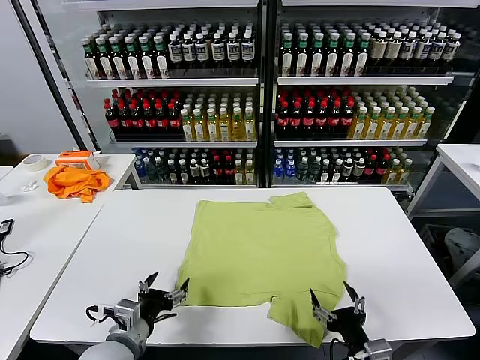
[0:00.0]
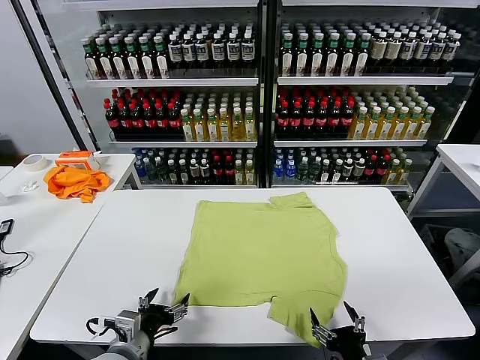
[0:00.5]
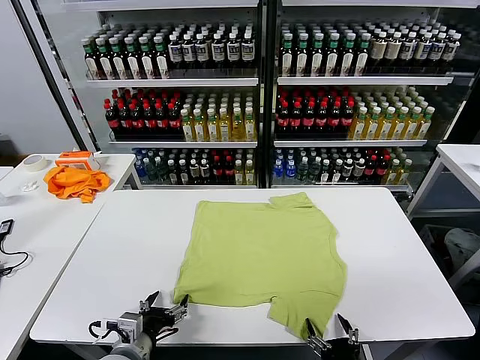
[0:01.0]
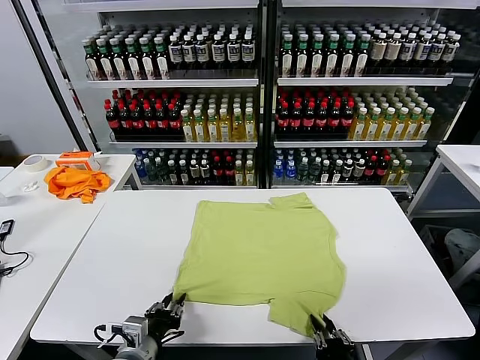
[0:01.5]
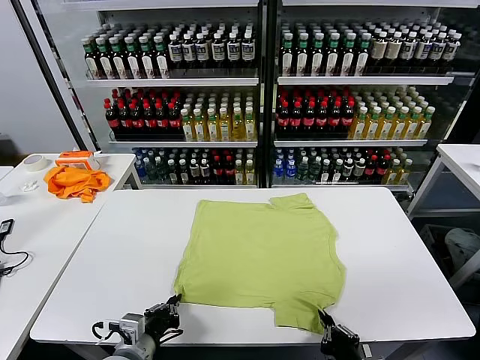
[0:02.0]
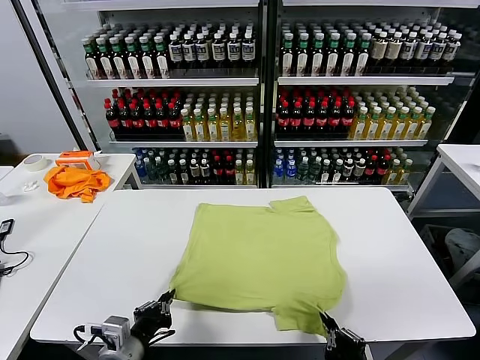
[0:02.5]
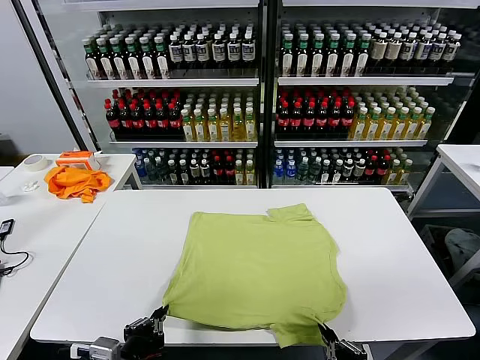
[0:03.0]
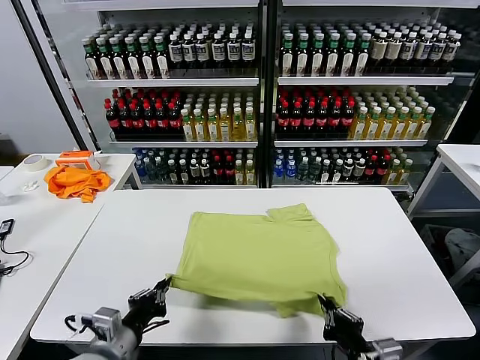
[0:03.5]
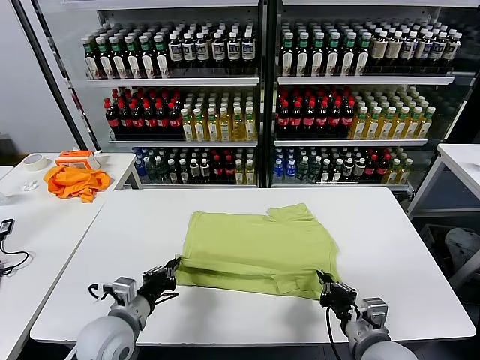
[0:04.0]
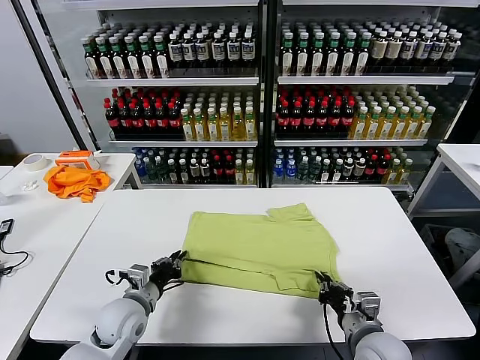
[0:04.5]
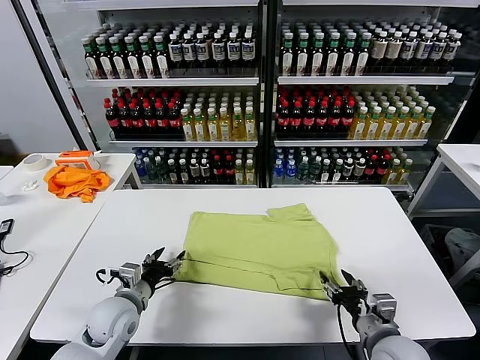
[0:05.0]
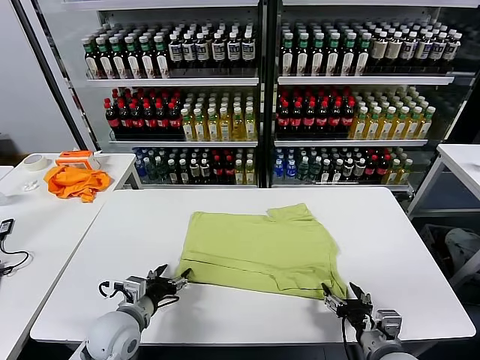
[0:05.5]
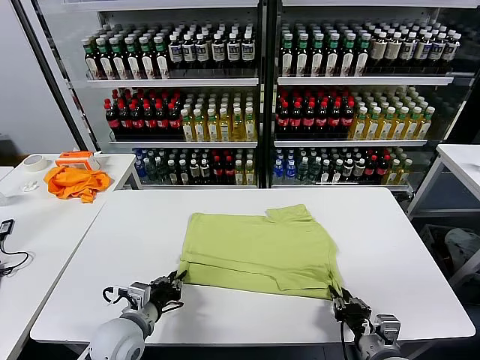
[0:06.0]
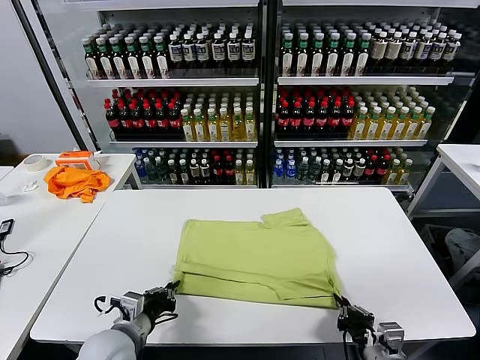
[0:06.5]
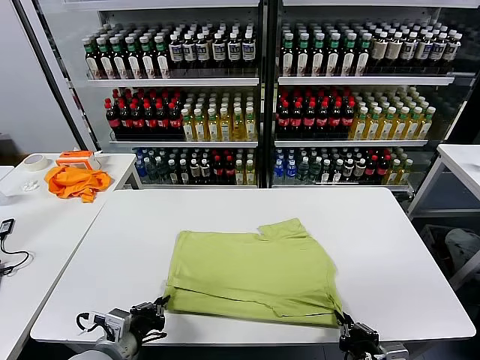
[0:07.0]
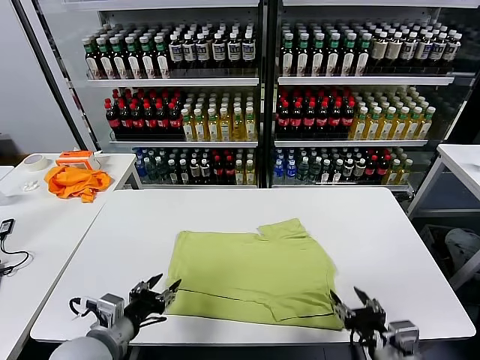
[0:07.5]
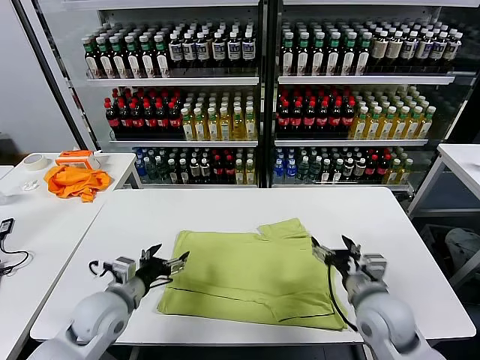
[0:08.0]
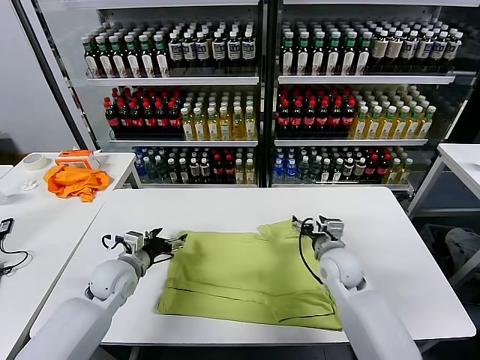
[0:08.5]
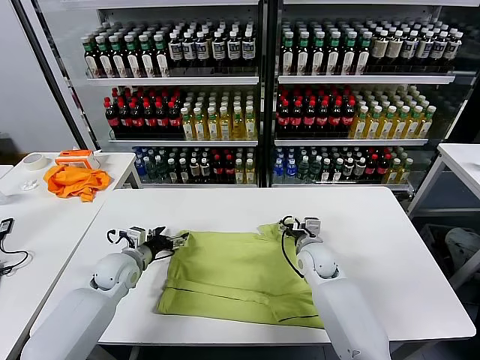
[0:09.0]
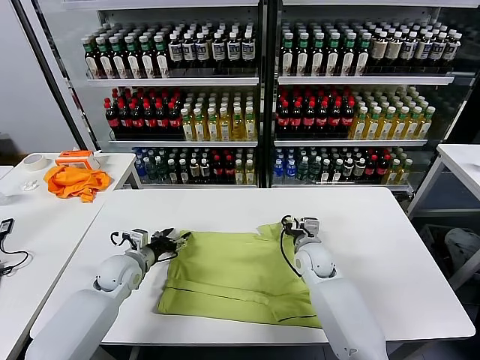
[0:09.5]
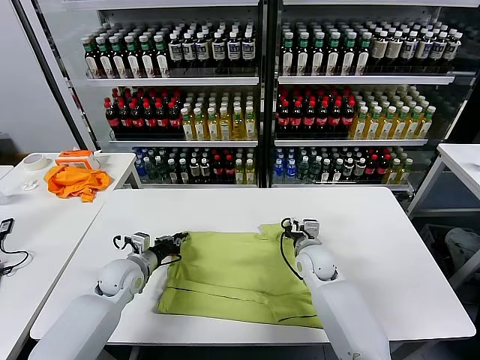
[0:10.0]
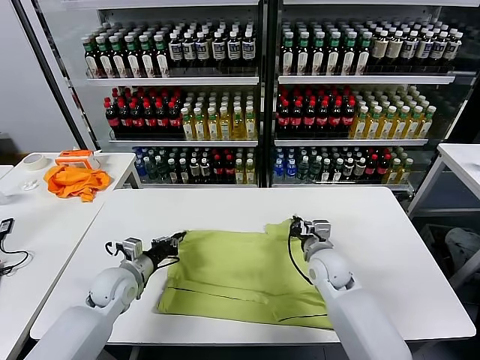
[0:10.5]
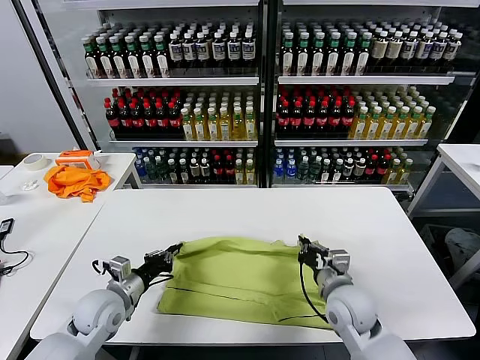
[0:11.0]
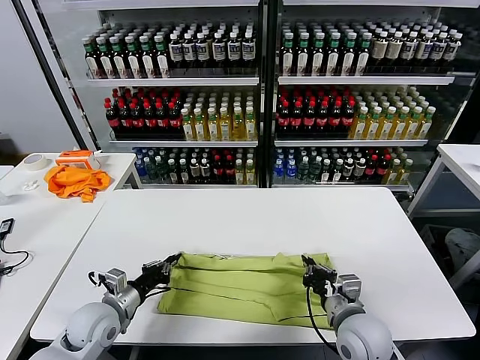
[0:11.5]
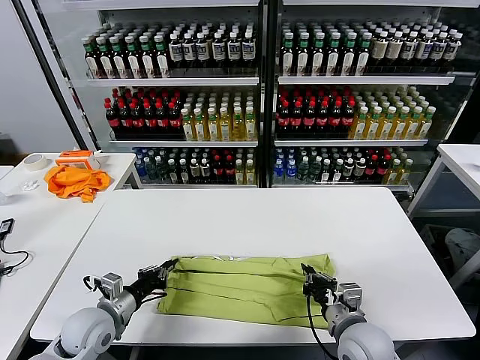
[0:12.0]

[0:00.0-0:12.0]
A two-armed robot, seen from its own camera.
Task of the whole recording: fold and organize the clothes.
Step, 0:00.0 to 0:01.5: use both grippers simultaneously to clamp the lower edge of the clothing fabric.
Step, 0:02.0 to 0:04.5: use both grippers to drag the lower edge of the fabric forward and fold it over the upper edge.
Step, 0:05.0 to 0:07.0: Drag the clothes downward with both gripper.
Step, 0:07.5 to 0:10.0: use both grippers simultaneously to clamp the upper edge of the clothing fabric.
0:02.0 to 0:04.0: Both grippers travel together forward, some 10 cm.
0:04.0 to 0:06.0: The left gripper opens and closes again. The right gripper ends up some 5 cm from where it was, and opens, then closes again.
0:06.0 to 0:08.0: The left gripper goes some 5 cm forward, and opens its fingers; the right gripper goes roughly 15 cm forward and upward, and opens its fingers.
0:08.0 to 0:10.0: The left gripper is displaced forward and downward by about 10 cm, and closes. The right gripper goes some 15 cm forward, downward and to the left, and closes its fingers.
0:10.0 to 0:12.0: The left gripper moves backward, roughly 15 cm; the right gripper goes approximately 20 cm backward.

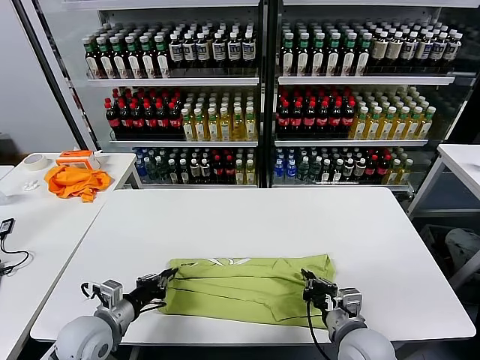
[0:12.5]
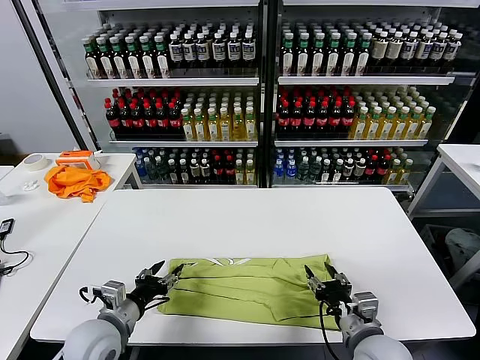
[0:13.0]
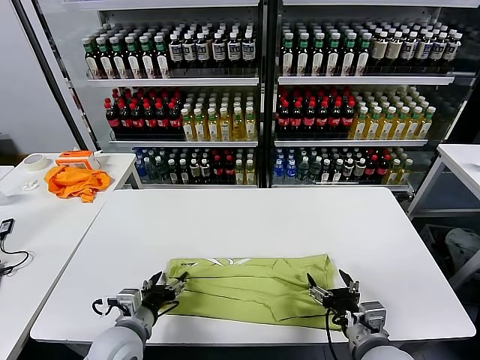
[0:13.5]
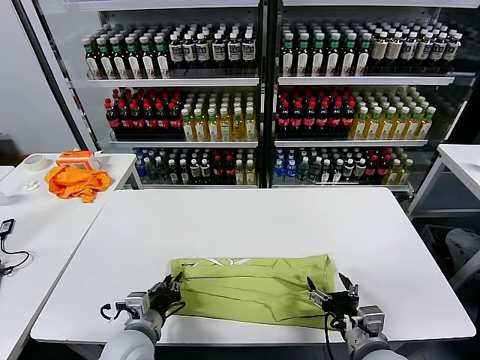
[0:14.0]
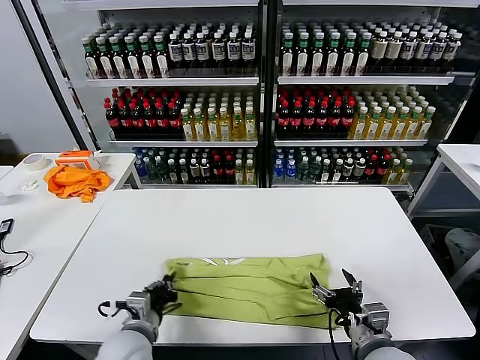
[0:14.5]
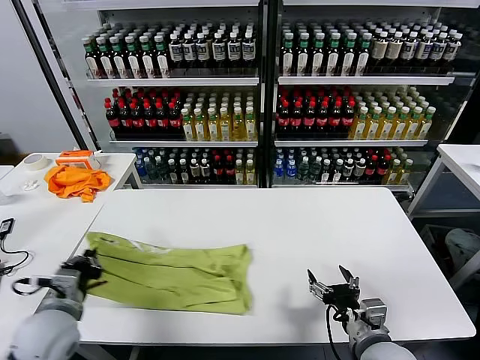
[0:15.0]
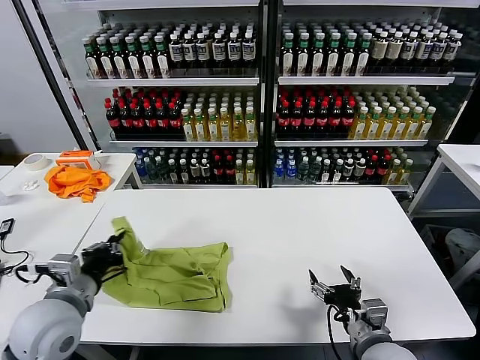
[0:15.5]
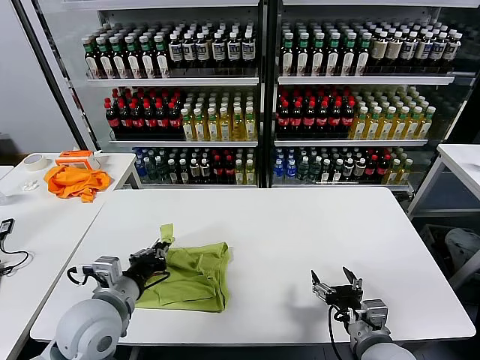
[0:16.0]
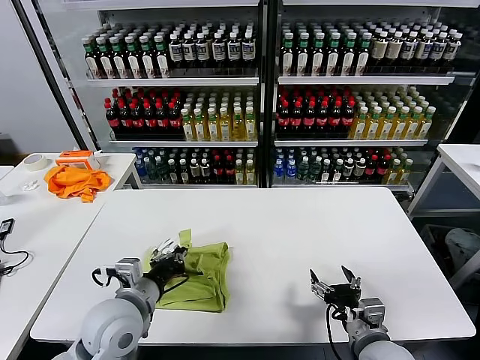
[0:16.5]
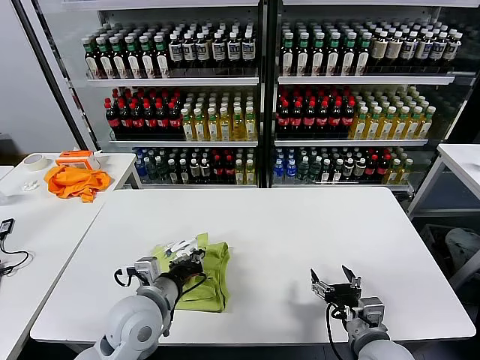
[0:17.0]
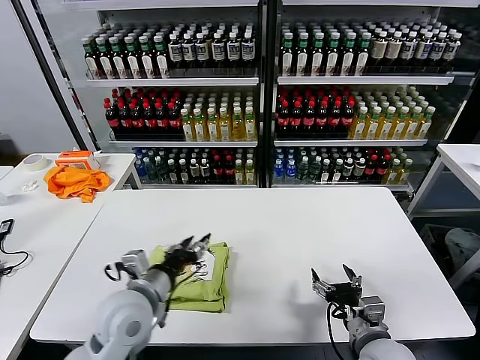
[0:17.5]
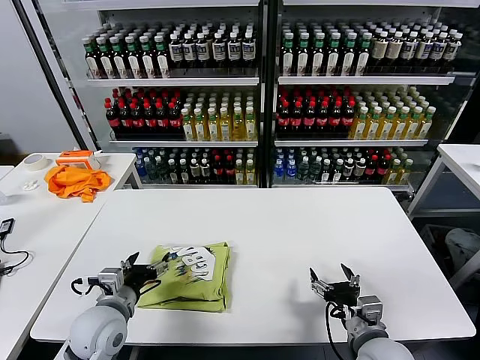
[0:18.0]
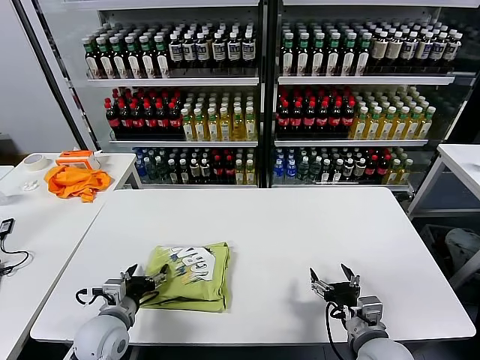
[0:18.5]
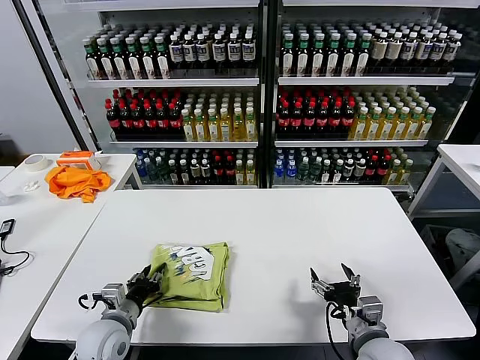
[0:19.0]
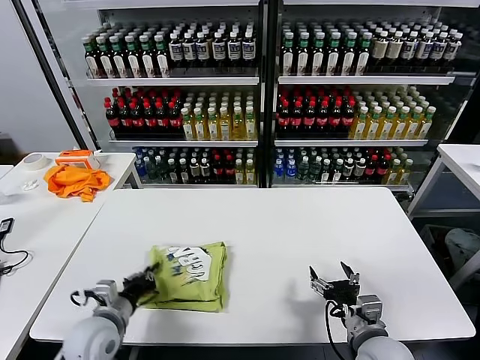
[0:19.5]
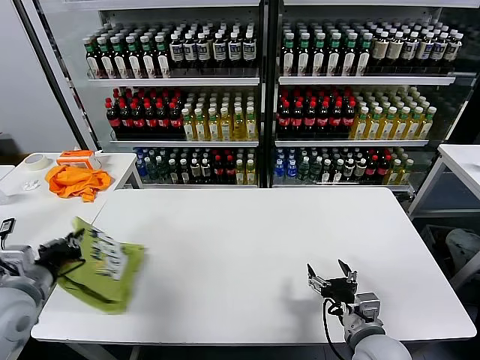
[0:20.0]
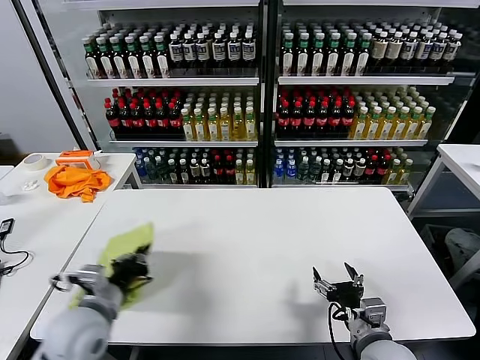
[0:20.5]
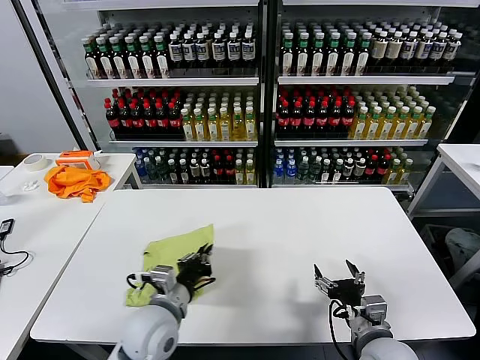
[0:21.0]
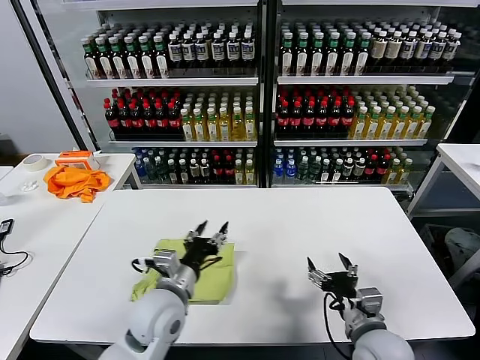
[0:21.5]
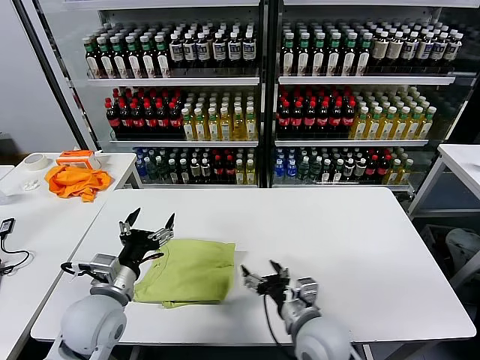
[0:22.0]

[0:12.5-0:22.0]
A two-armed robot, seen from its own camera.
Task of the whole recording: fold and organize the clothes.
Step, 0:13.0 to 0:14.0: use the left gripper to clamp the left edge of the fabric.
Step, 0:14.5 to 0:17.0: use the left gripper to drag the left edge of the fabric to the left and folds it over the right edge.
Step, 0:17.5 to 0:21.0: Flip the folded clothes over with left gripper.
0:12.5 to 0:14.5: The right gripper opens up. Meanwhile the left gripper goes some 10 cm to the right, and opens and closes again.
0:14.5 to 0:16.5: The left gripper goes approximately 10 cm upward.
0:16.5 to 0:18.0: The left gripper travels downward by about 5 cm, and opens.
0:18.0 to 0:20.0: The left gripper heads to the left and upward, covering approximately 15 cm, and closes up.
0:20.0 to 0:22.0: The right gripper is displaced to the left by approximately 10 cm. Meanwhile the left gripper is displaced to the right by roughly 15 cm, and opens its fingers.

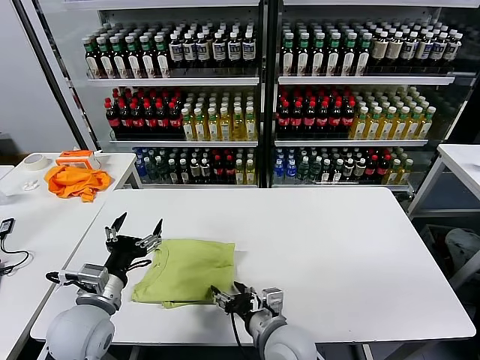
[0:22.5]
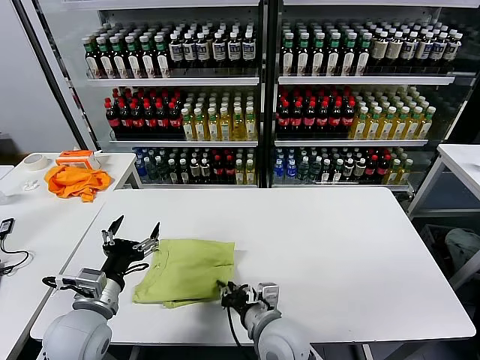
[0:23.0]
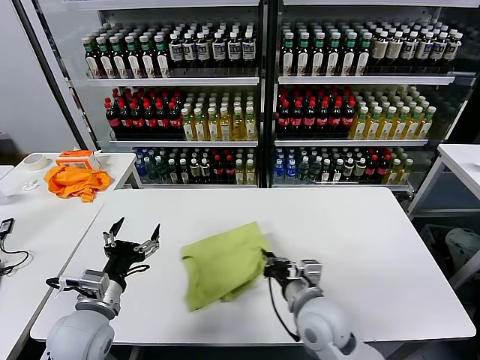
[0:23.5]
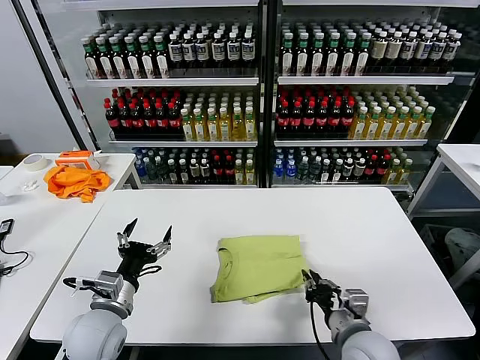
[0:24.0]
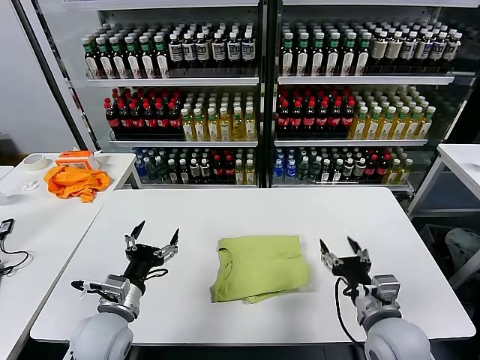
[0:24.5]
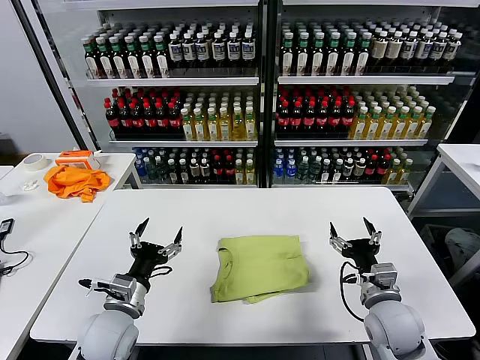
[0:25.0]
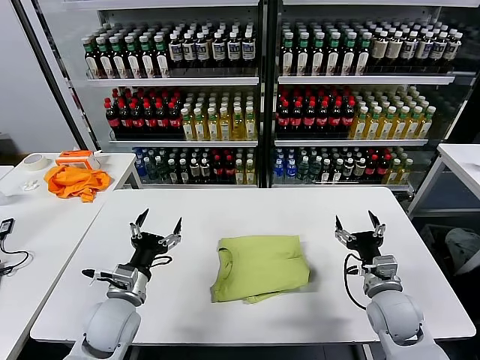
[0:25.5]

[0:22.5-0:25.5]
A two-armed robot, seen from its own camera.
Task of the whole recording: fold and organize the clothes.
Step, 0:22.5 to 0:24.0: Drag the clothes to the center of the table.
0:22.5 to 0:24.0: The right gripper is displaced to the right by approximately 15 cm, and closes.
0:24.0 to 0:25.5: The right gripper travels to the right and forward by about 10 cm, and opens.
